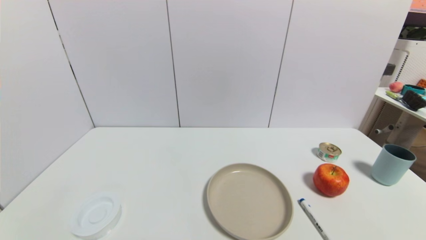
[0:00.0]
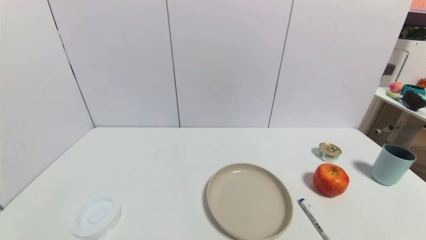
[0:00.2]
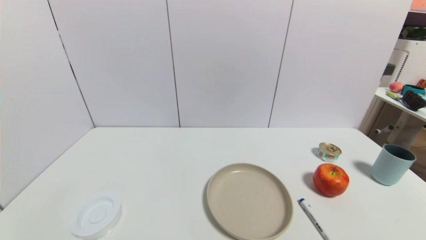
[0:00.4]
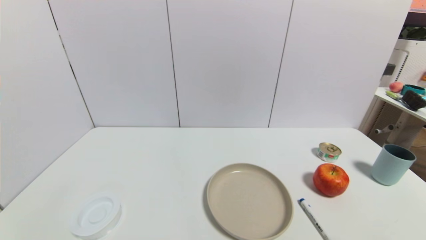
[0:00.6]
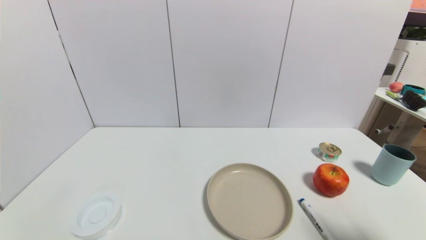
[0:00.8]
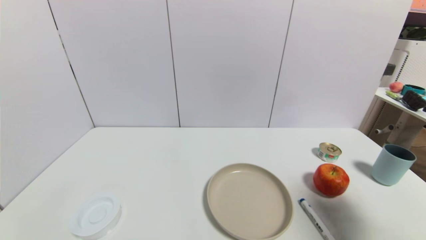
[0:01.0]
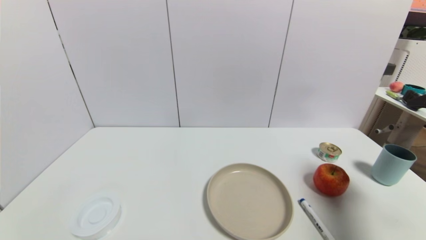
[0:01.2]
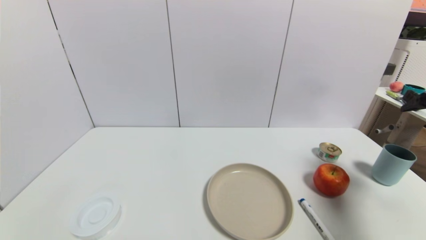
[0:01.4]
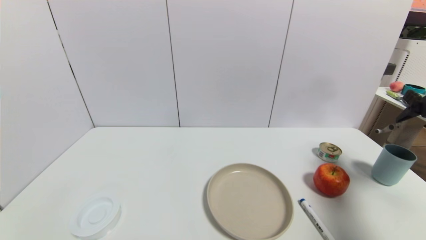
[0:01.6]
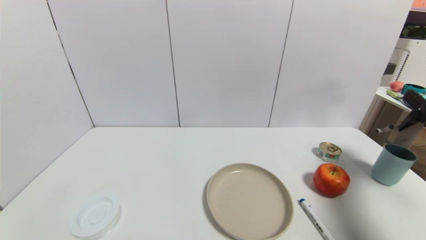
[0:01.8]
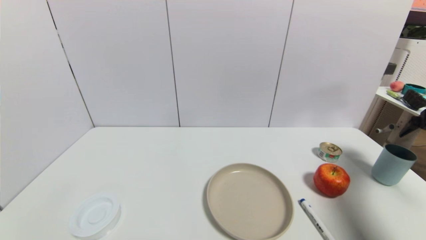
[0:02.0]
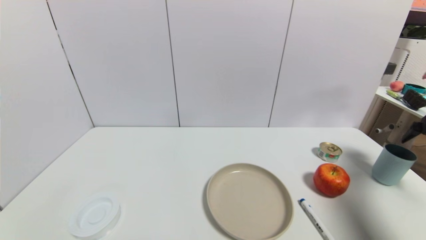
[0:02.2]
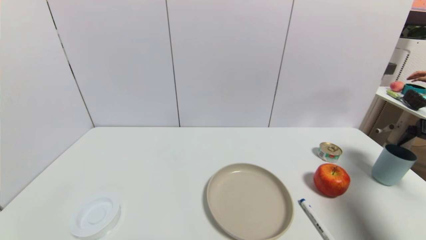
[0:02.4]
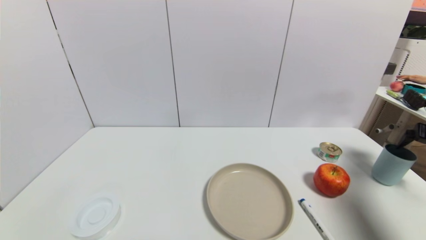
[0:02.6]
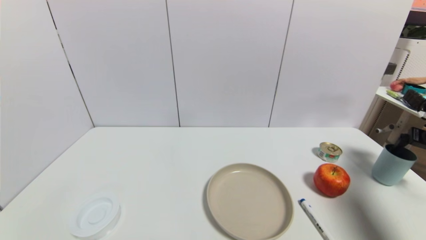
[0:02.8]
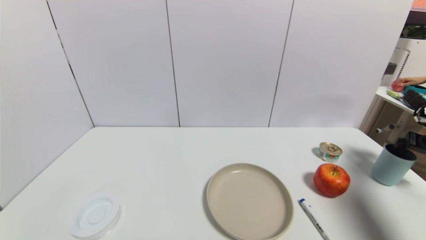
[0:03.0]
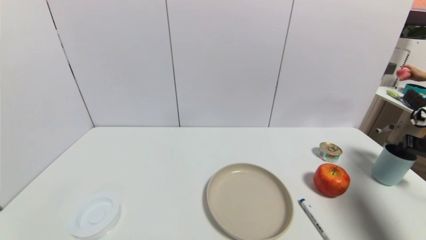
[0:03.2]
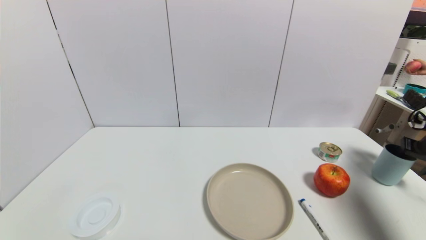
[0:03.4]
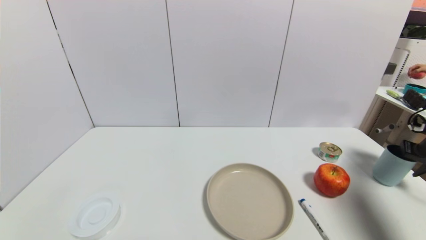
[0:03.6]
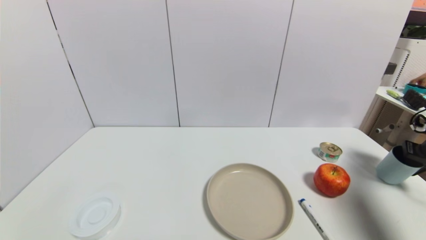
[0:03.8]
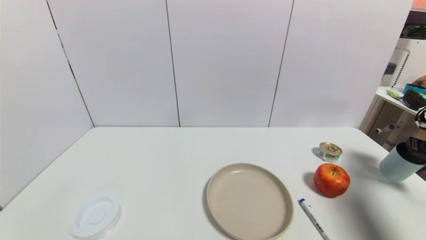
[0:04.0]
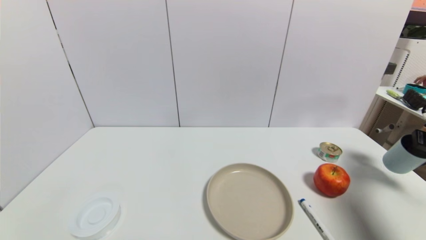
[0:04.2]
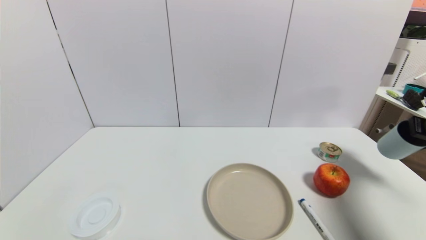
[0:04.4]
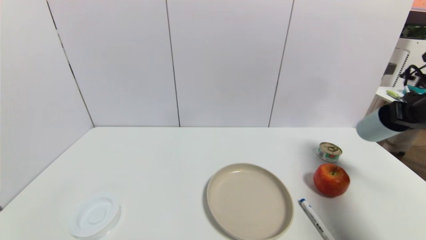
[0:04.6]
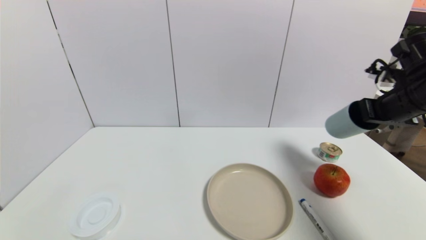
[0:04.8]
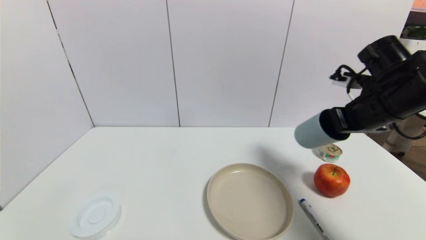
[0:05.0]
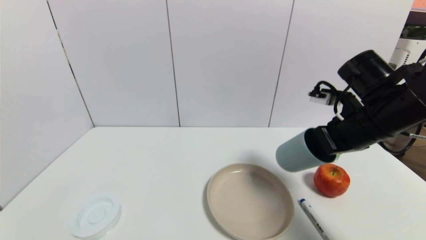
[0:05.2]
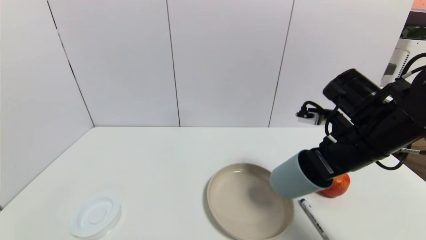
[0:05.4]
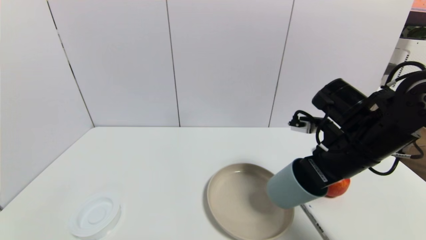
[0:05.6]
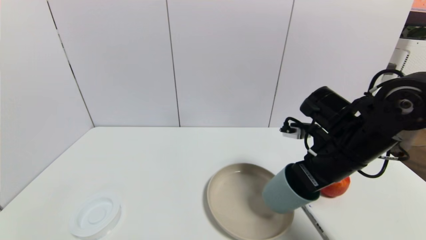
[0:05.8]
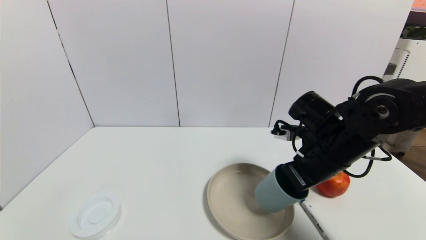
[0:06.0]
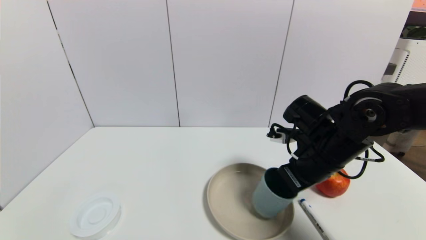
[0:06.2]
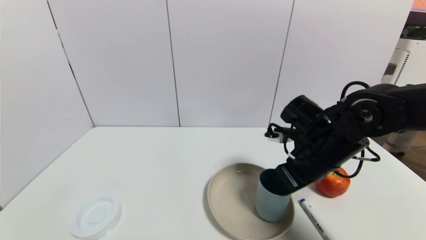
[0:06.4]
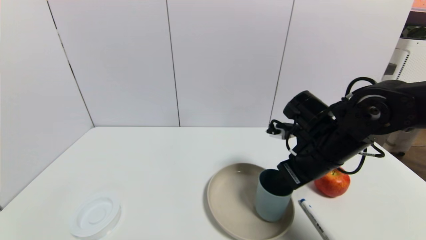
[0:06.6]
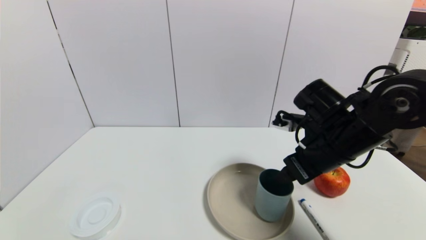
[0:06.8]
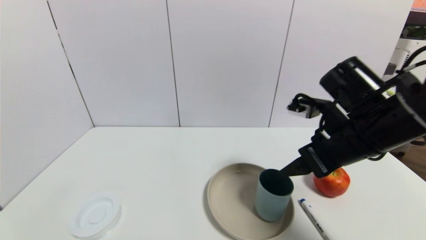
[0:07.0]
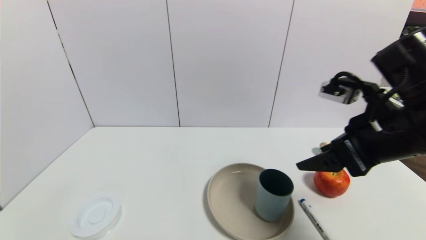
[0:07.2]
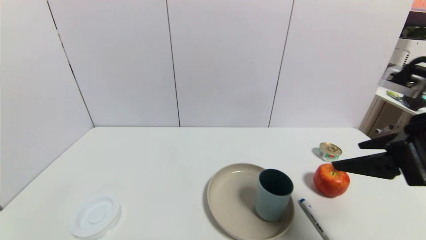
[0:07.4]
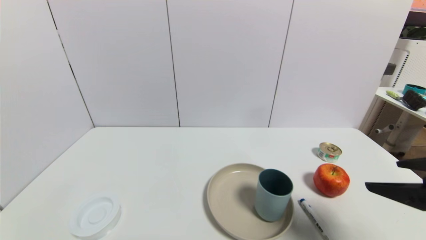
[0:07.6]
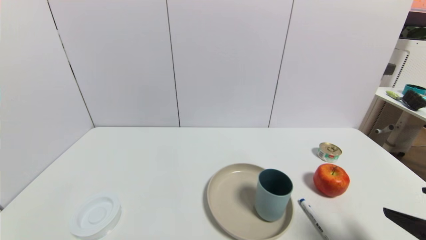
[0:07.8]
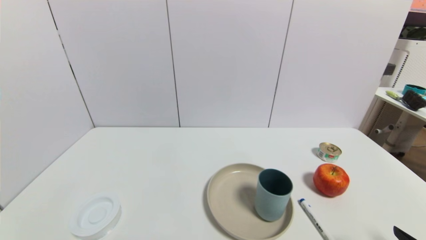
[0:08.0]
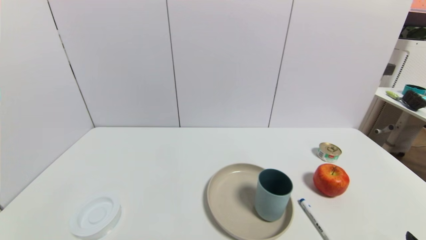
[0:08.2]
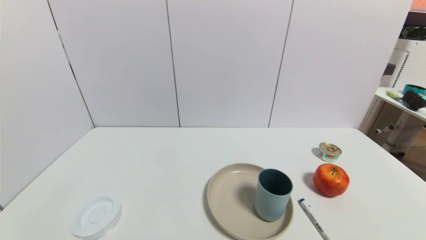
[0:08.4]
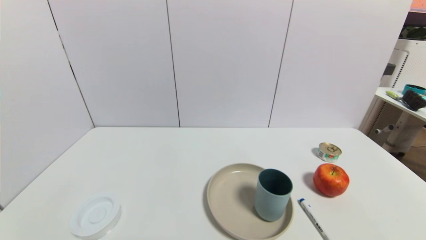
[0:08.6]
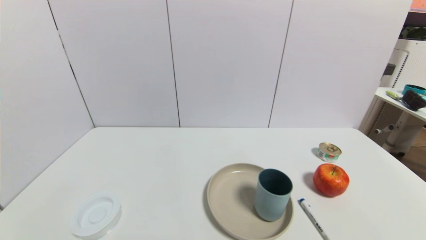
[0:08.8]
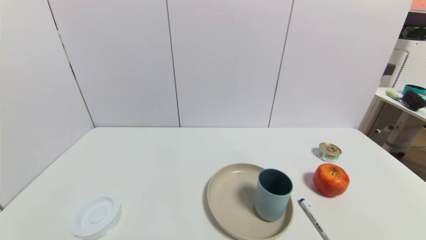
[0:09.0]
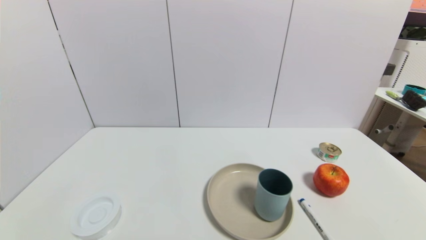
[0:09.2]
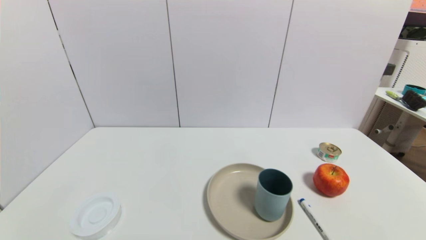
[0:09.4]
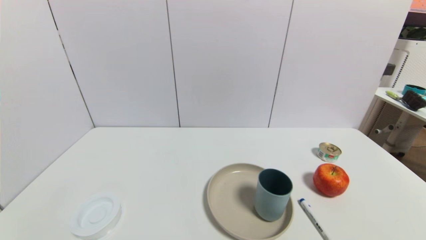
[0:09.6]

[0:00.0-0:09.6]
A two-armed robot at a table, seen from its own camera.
Task of the whole recording: use a gripper to pick the target object and place on the brown plate.
Step, 0:00.0 to 0:03.6: Grasp the blue cup with the right gripper.
Step, 0:03.8 to 0:06.8: Place the blue cup on the brown plate with the right gripper.
0:00.0 to 0:01.6: The right gripper moves forward and upward, roughly 35 cm.
0:01.6 to 0:03.2: The right gripper shifts approximately 15 cm downward, to the right and forward.
0:03.2 to 0:04.8: The right gripper is displaced to the left and upward by some 20 cm, and closes.
0:04.8 to 0:06.4: The right gripper is displaced to the left and downward by roughly 20 cm, and opens.
0:06.4 to 0:08.0: The right gripper shifts roughly 25 cm backward and to the right, and opens its fingers.
